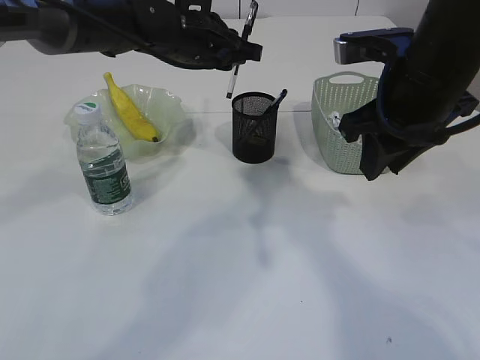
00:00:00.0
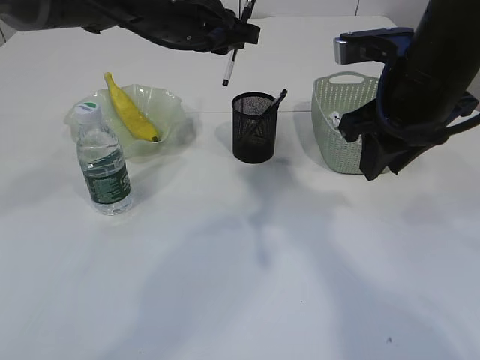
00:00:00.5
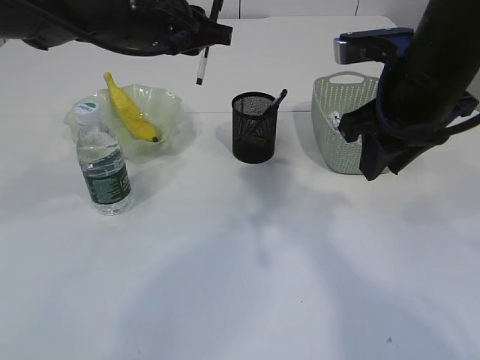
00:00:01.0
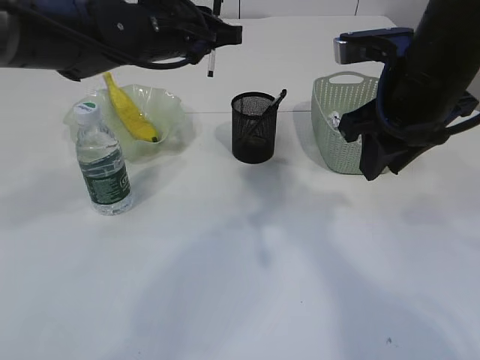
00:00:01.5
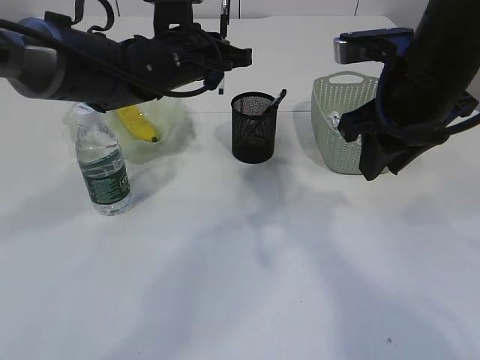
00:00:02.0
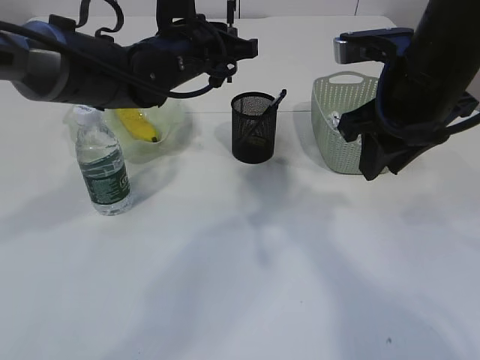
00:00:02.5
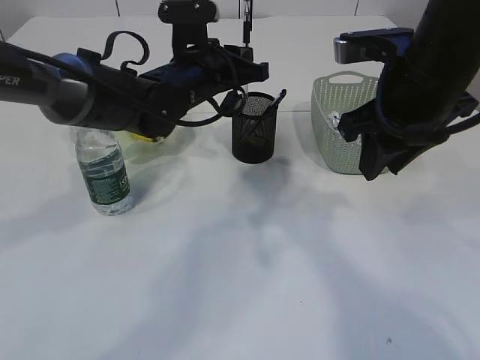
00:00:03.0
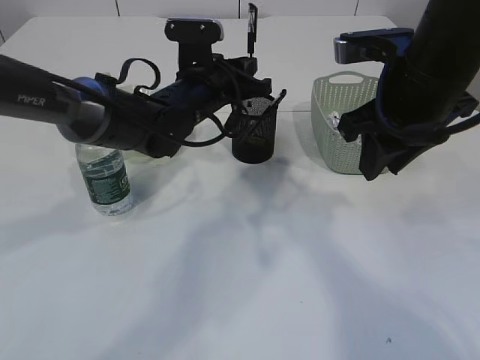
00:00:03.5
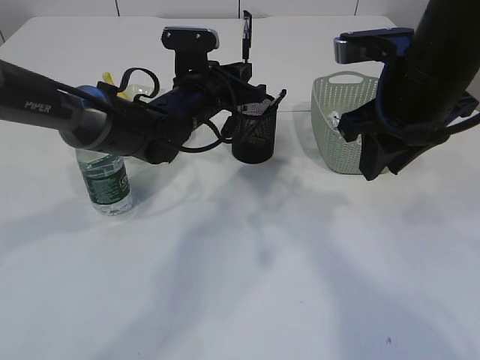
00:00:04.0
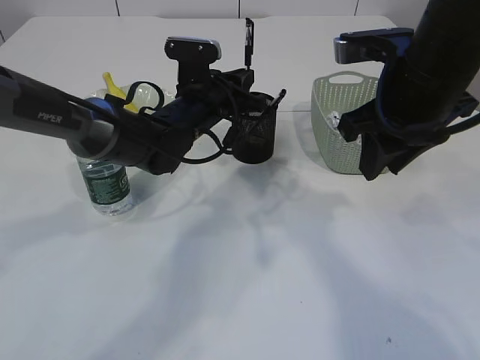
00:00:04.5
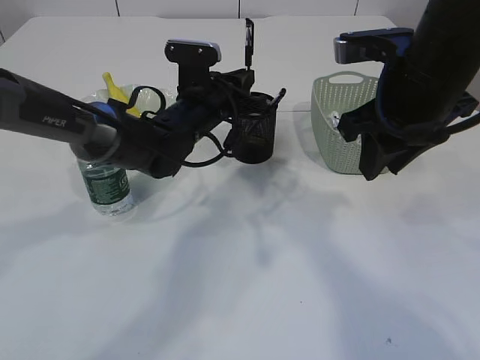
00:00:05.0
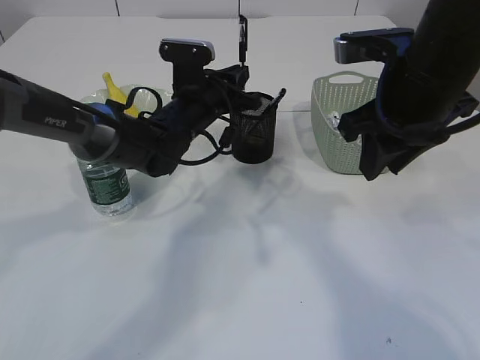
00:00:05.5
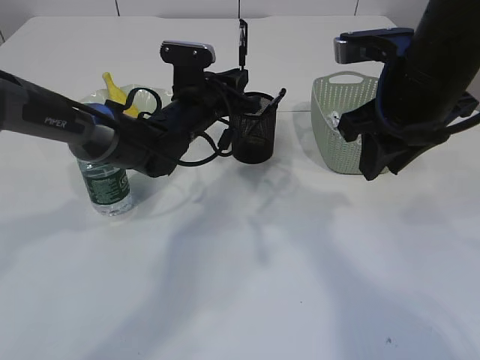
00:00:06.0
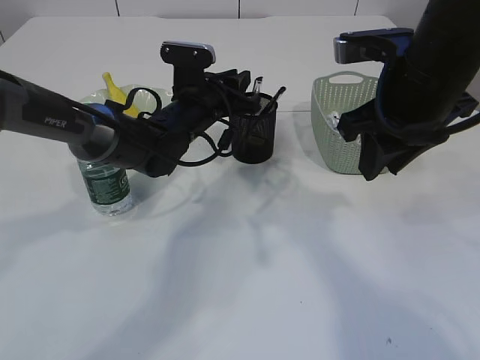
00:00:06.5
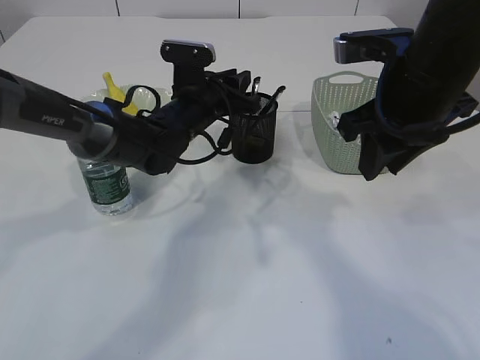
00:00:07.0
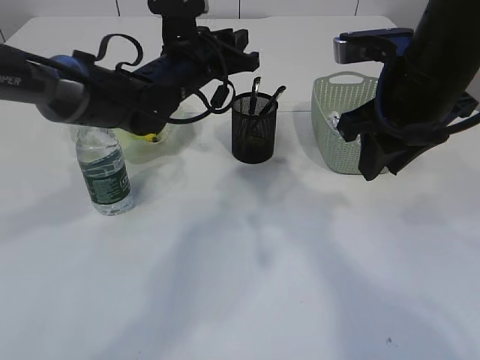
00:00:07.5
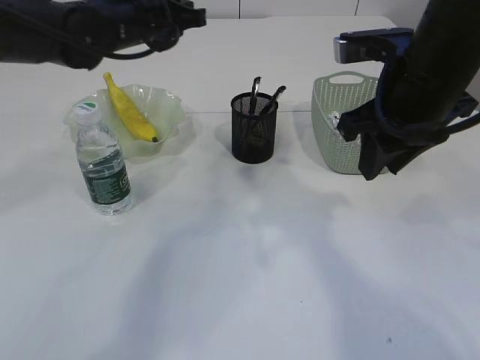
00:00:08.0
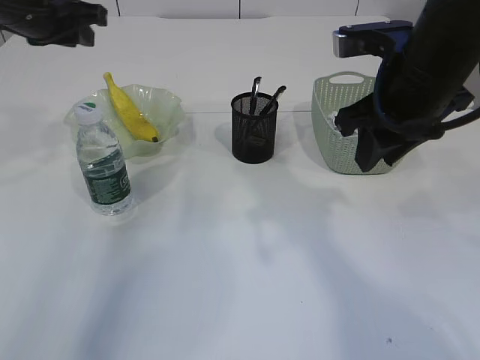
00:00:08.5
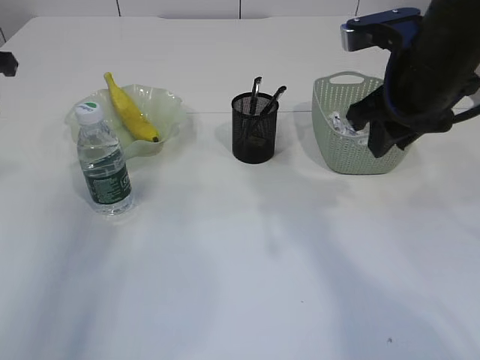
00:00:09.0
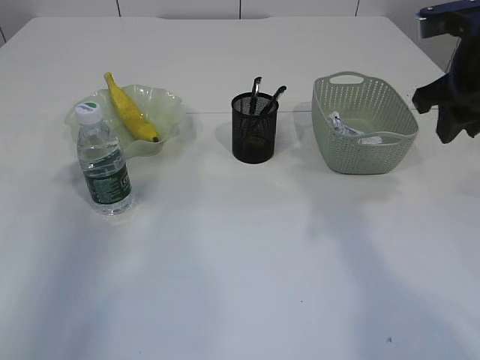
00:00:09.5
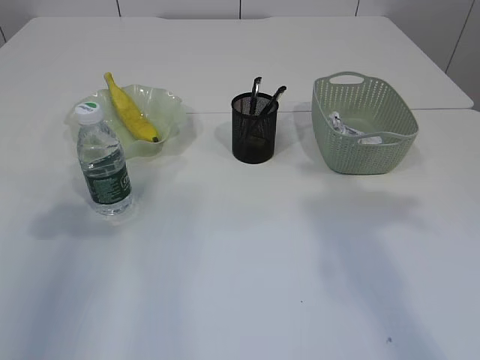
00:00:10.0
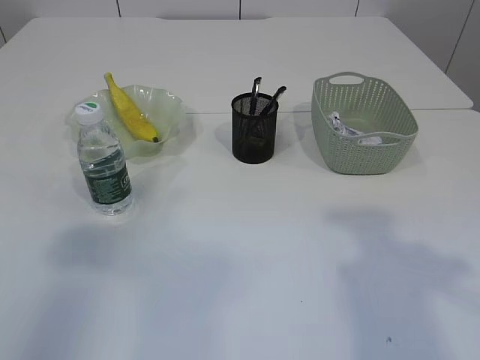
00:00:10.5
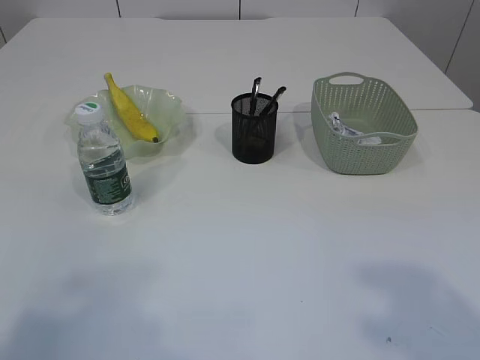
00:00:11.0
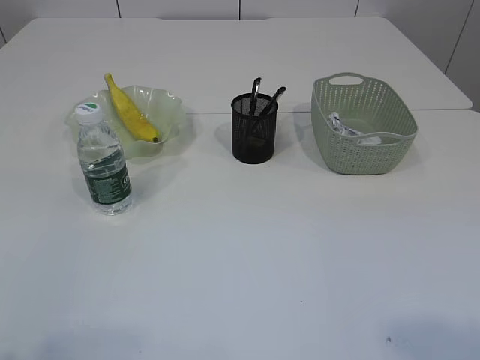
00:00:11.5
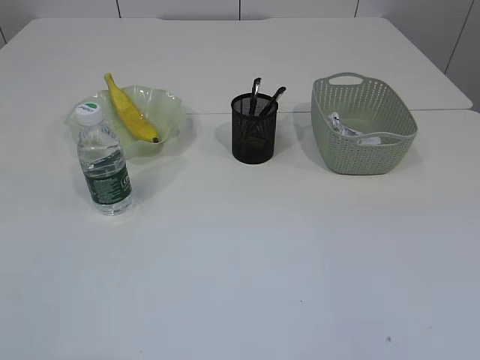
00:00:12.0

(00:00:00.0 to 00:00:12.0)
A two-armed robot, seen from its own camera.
Step, 00:00:00.0 - 00:00:07.0: Place the pen into the pen holder.
00:00:02.0 - 00:00:04.0: The left gripper shifts some 5 cm downward.
00:00:04.0 - 00:00:06.0: There are only small adjustments of the grippers.
00:00:06.0 - 00:00:08.0: The left gripper shifts roughly 15 cm upward and to the left.
00:00:08.0 - 00:00:10.0: The right gripper goes about 10 cm to the right and upward. The left gripper shifts approximately 30 cm to the left and backward, and opens up.
00:00:10.0 - 00:00:12.0: The left gripper heads backward, covering some 30 cm.
